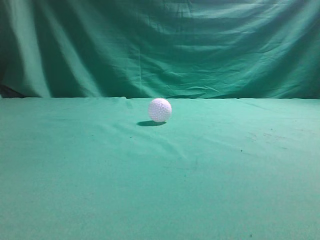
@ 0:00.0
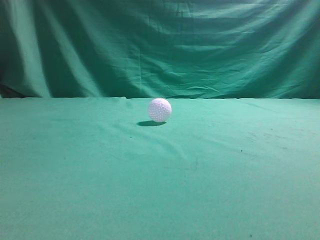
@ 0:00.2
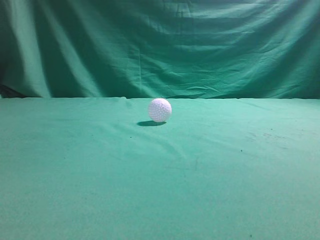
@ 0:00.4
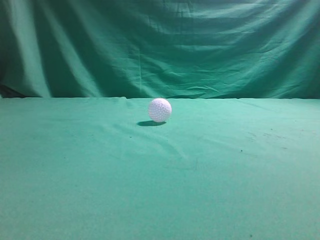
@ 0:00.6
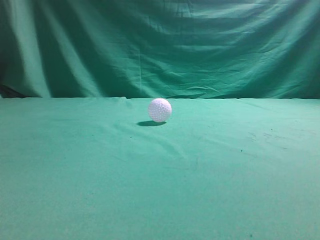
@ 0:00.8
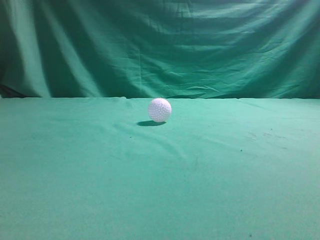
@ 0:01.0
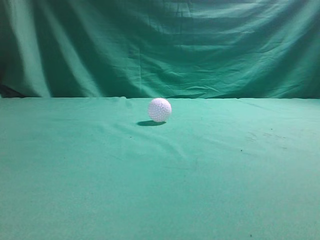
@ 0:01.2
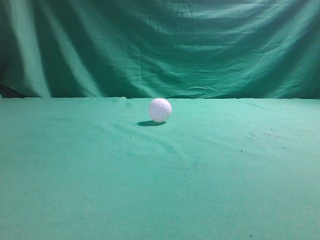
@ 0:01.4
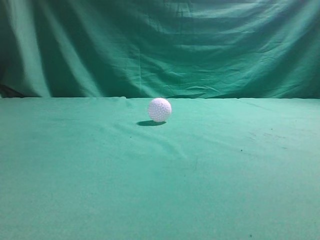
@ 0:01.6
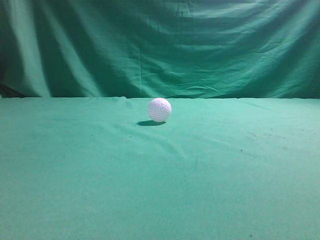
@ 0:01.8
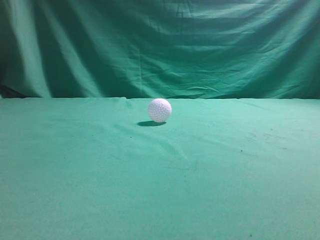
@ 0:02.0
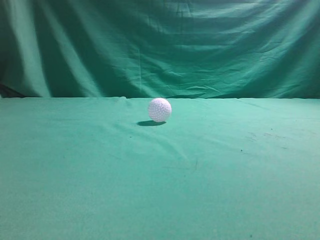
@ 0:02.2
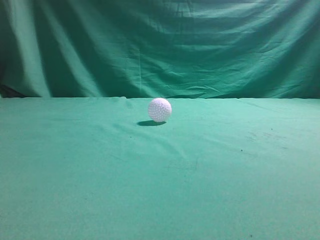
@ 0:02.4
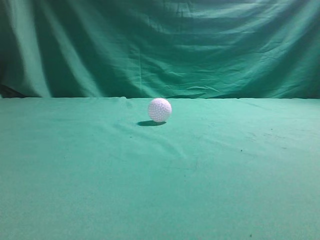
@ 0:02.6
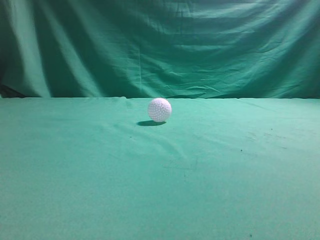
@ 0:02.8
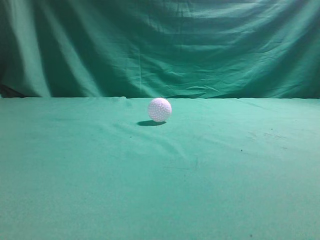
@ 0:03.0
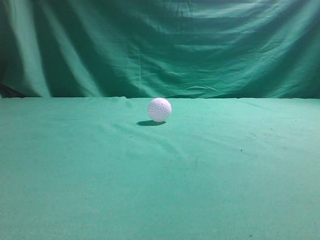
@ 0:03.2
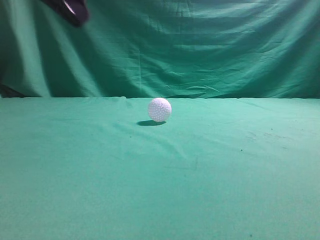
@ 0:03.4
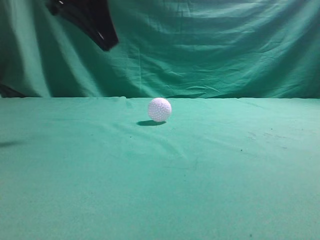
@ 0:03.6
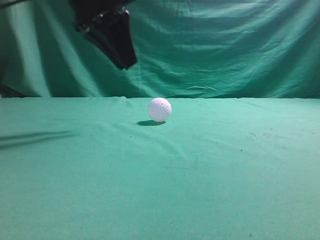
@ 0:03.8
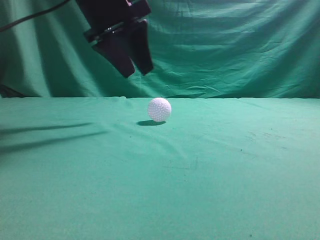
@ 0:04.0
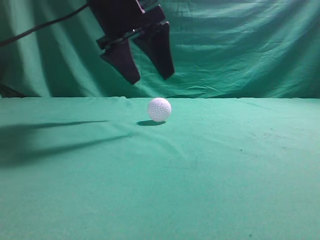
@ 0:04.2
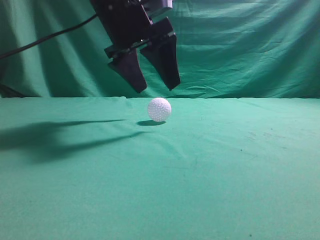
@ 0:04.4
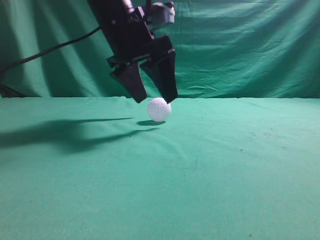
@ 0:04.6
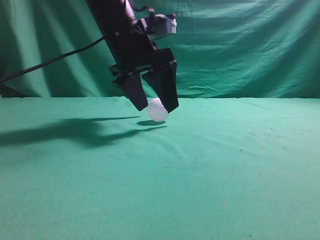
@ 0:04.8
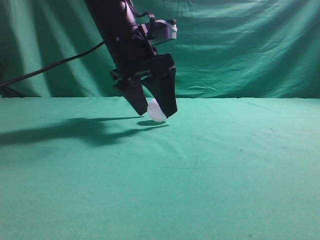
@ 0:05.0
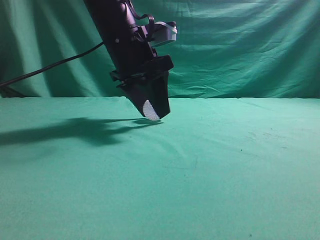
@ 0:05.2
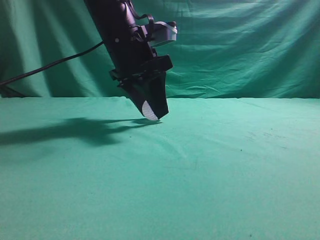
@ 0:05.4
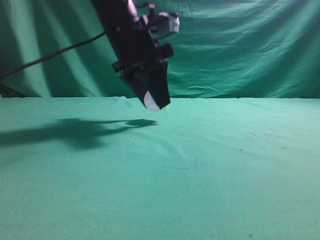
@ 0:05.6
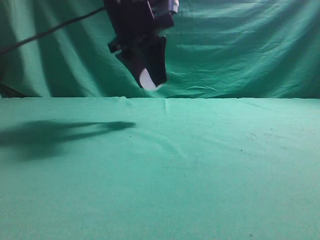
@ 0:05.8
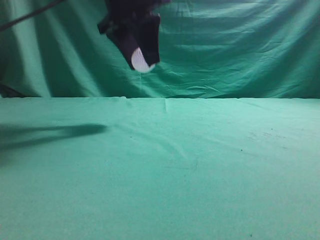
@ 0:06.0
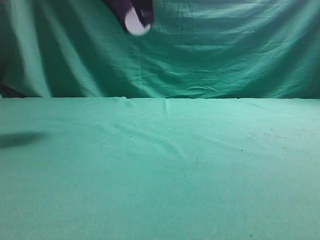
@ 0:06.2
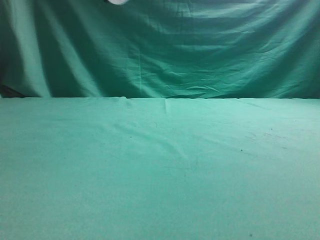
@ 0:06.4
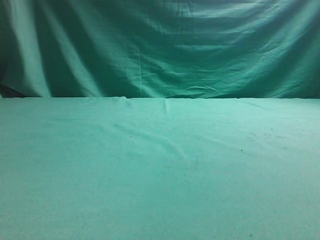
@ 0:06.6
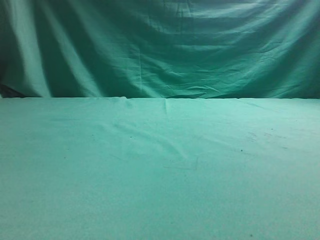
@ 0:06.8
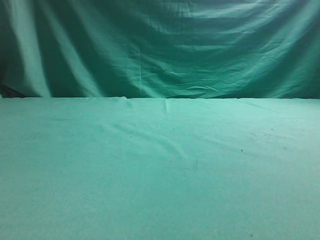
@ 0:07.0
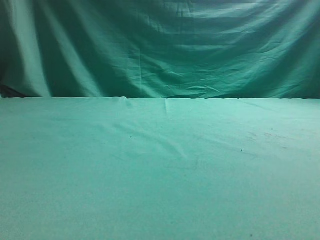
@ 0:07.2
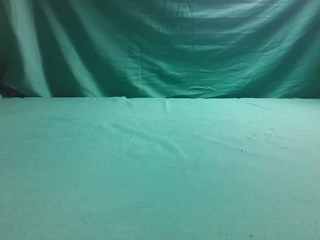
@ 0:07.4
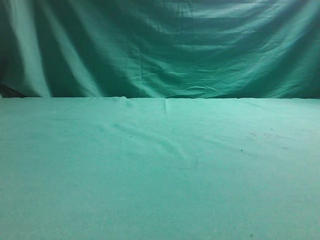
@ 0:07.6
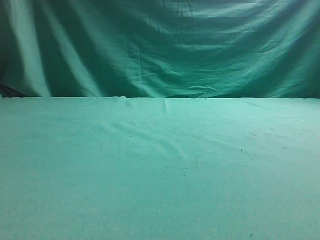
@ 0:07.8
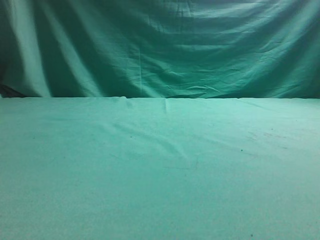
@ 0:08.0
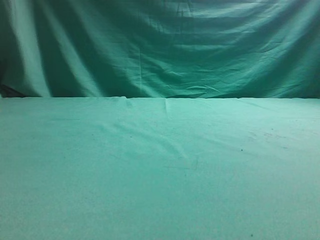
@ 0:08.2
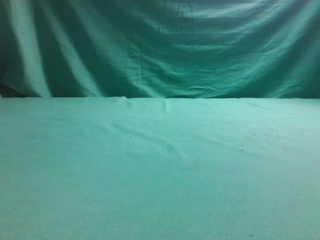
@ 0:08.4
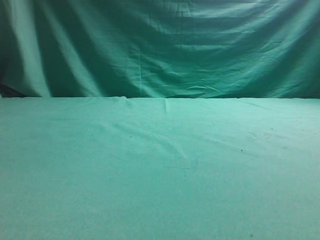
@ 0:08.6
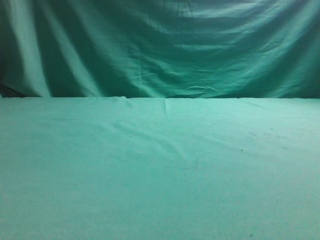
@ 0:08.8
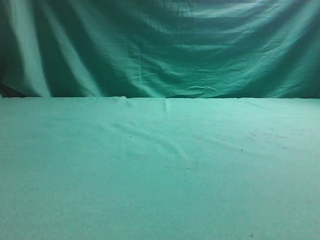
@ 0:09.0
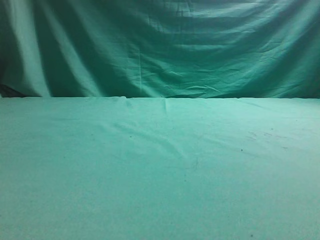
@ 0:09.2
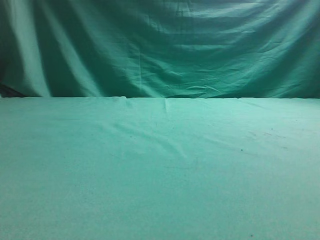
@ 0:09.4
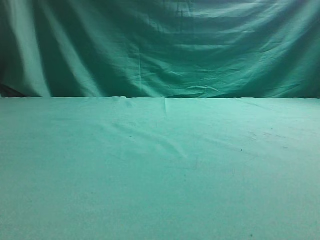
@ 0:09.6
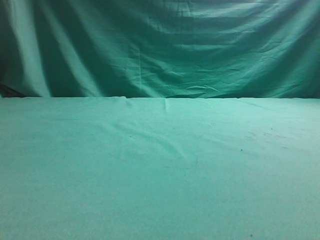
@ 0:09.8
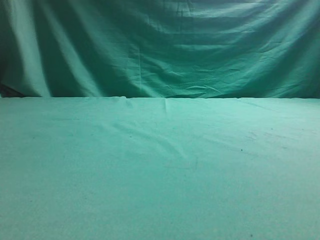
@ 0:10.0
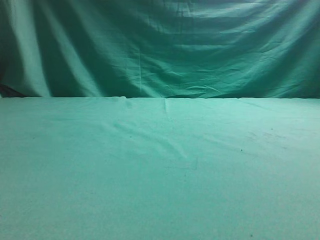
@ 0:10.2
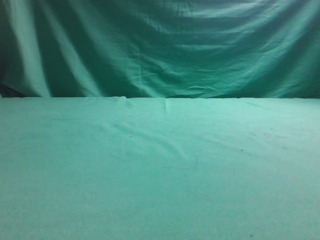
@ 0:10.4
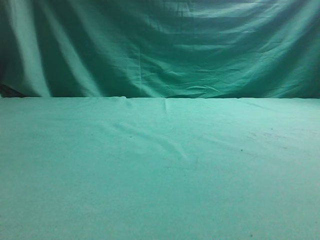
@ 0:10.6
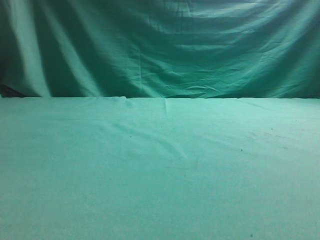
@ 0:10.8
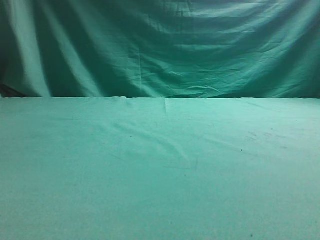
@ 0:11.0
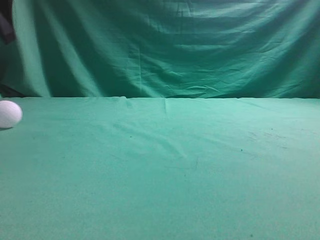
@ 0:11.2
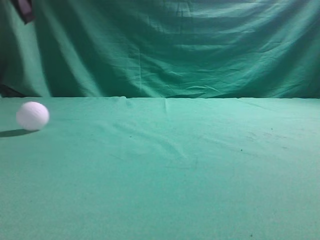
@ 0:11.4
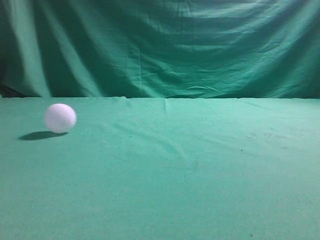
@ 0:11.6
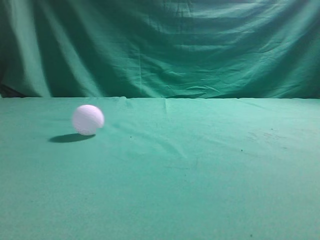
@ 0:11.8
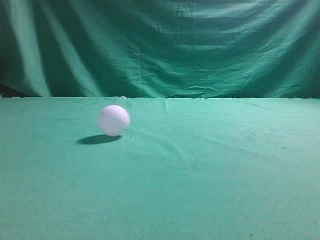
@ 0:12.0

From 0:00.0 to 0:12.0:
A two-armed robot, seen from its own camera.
Task of the whole recording: pick up the ball and place it on the plate, then pick up the ball from the plate and put it in the center of the table.
Step, from 0:00.0 to 0:05.6: Grab the spherical object with your left arm.
Step, from 0:05.8 to 0:10.6: Place the sphere on the white object.
From 0:03.0 to 0:04.4: The left gripper is displaced forward, to the right and downward by some 30 cm, and opens up.
From 0:04.4 to 0:06.0: The left gripper closes.
From 0:06.0 to 0:07.6: The left gripper is displaced to the left and backward by roughly 30 cm.
From 0:10.4 to 0:12.0: The left gripper travels upward and to the right by about 25 cm, and closes up.

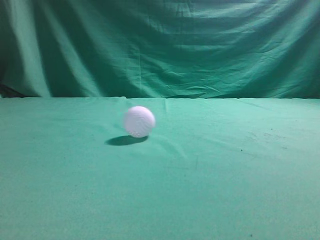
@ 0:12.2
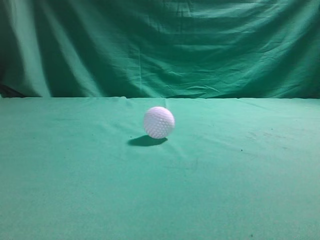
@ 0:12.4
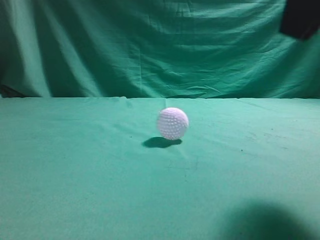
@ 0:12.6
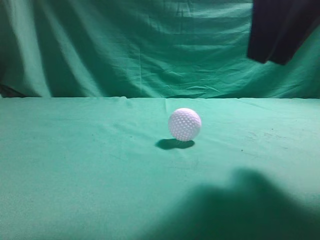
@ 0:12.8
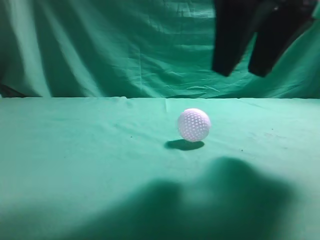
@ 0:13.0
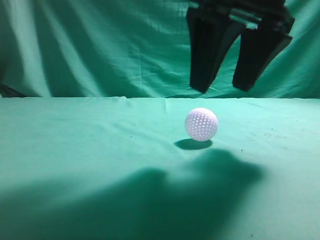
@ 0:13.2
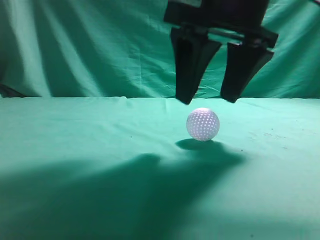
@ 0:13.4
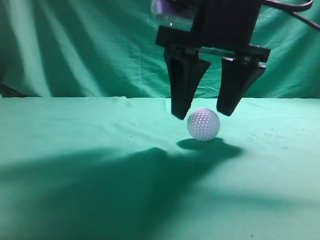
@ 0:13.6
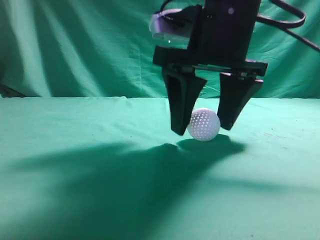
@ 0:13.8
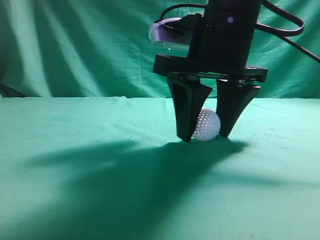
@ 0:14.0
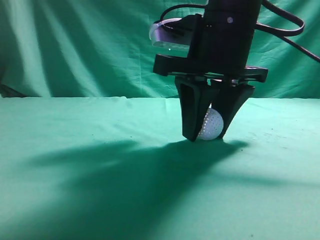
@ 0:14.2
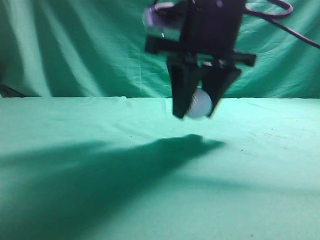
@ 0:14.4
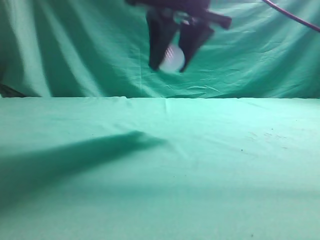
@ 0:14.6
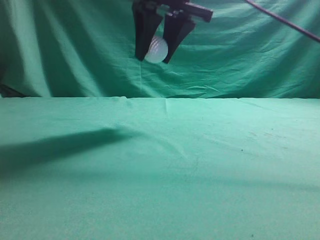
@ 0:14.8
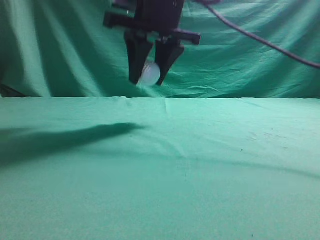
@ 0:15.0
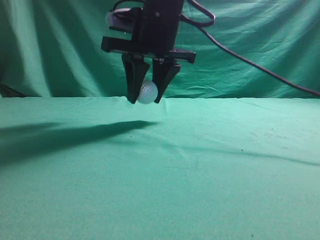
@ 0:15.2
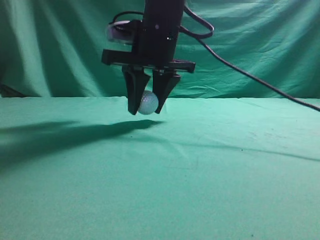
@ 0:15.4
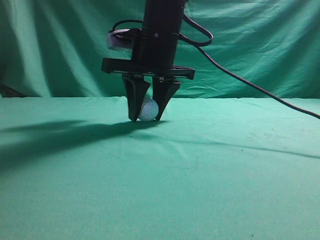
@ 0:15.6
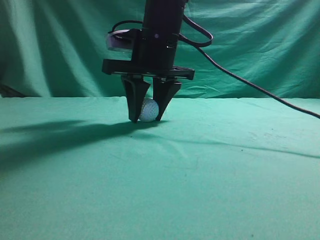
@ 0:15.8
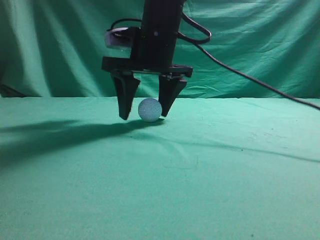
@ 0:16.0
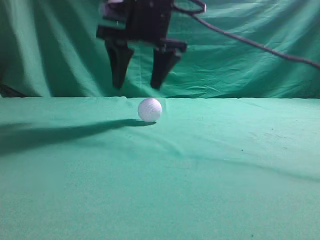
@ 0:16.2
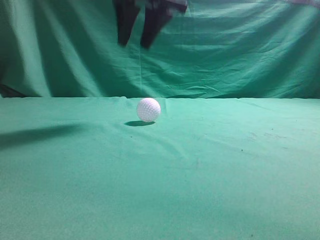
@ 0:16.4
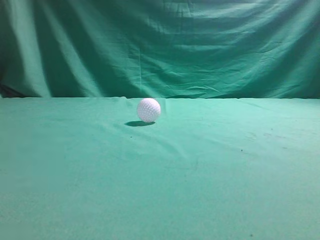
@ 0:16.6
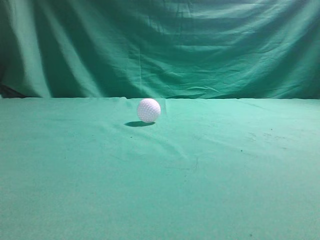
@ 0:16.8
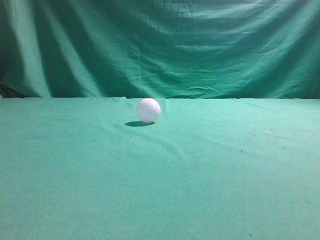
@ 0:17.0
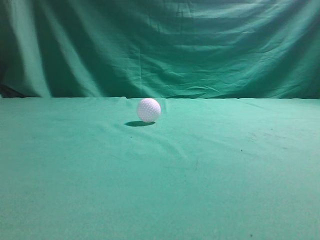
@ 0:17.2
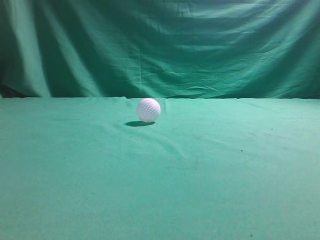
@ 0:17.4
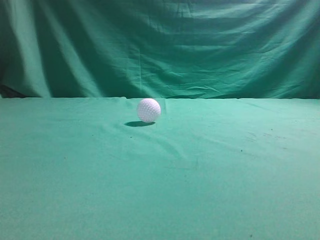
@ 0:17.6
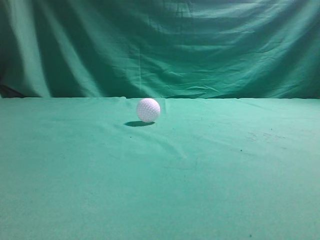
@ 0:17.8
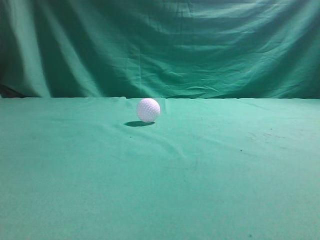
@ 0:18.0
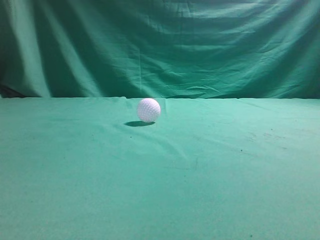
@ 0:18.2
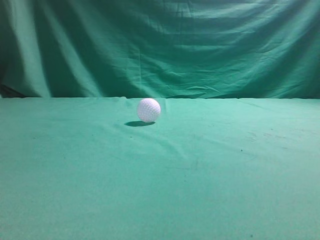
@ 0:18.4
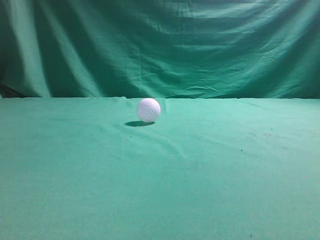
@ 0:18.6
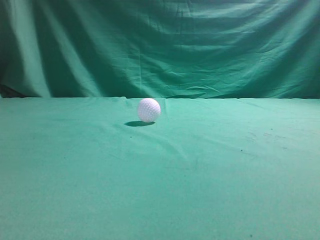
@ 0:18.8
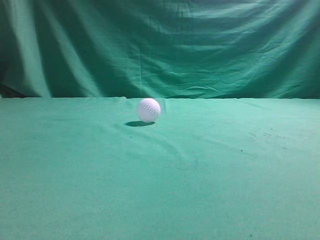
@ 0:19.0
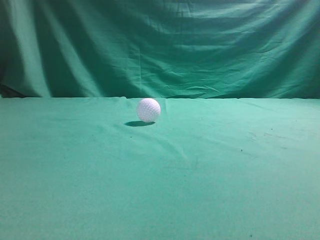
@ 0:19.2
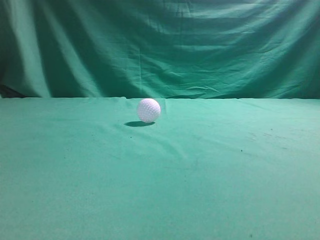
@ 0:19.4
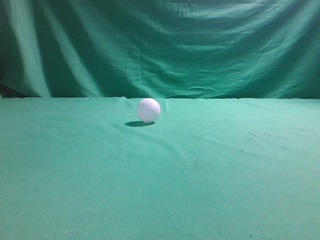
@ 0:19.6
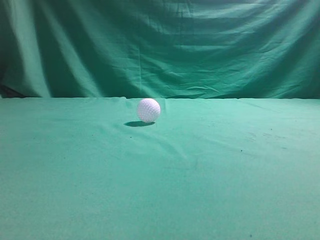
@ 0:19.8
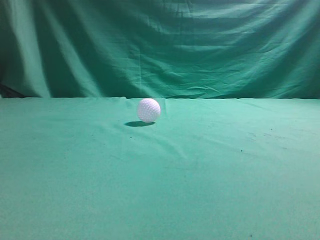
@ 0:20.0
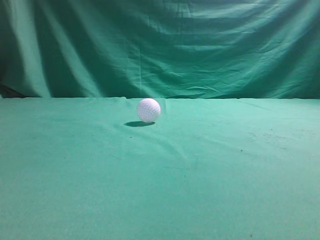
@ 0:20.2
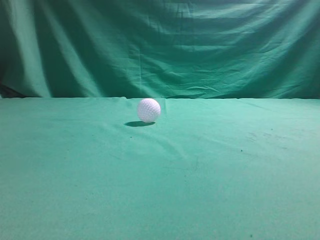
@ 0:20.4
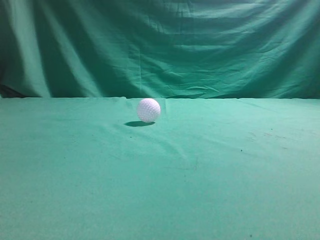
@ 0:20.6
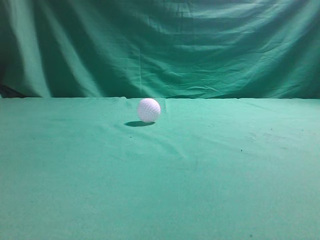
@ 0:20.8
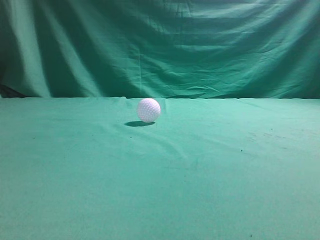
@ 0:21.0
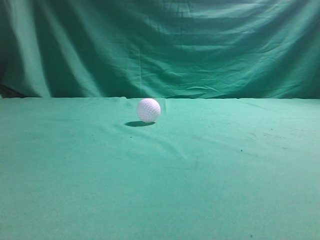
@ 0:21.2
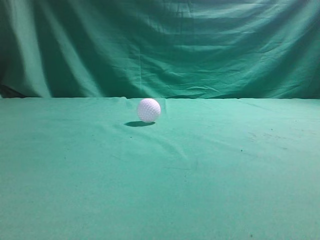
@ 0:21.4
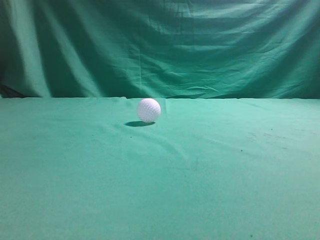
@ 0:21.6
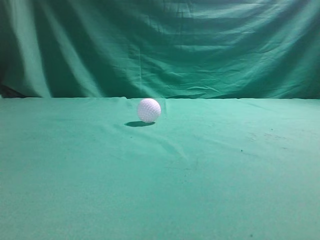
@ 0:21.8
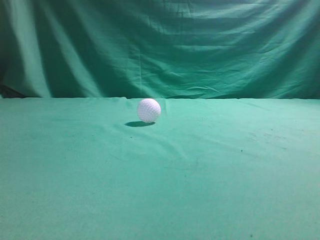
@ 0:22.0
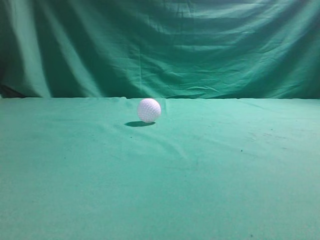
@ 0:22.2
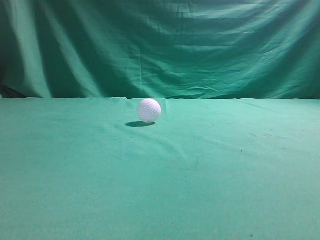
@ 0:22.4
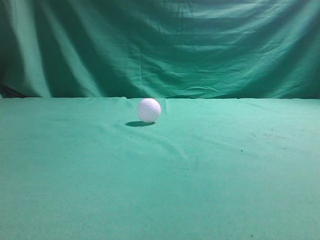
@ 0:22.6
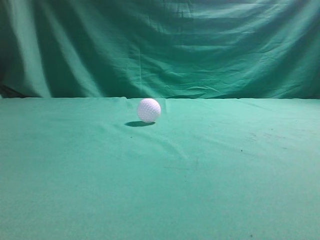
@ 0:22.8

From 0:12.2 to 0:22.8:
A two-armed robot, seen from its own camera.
Task of the whole recording: pick up the ball and place it on the plate, then pick up the ball from the plate and put it in the center of the table.
Step, from 0:12.2 to 0:14.4: Grab the rolling spherical object.
Step, from 0:14.6 to 0:16.2: Put the picked-up object on the table.
From 0:12.2 to 0:13.8: The left gripper is displaced backward and downward by approximately 15 cm, while the right gripper shifts about 20 cm forward, to the left and downward, and opens.
From 0:13.8 to 0:15.2: The right gripper travels forward and to the left by approximately 10 cm, and closes its fingers.
From 0:15.2 to 0:16.8: The right gripper moves upward, approximately 25 cm, and closes.
